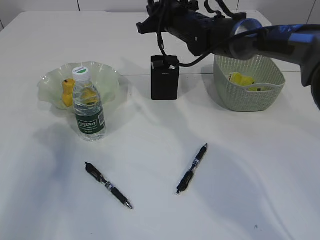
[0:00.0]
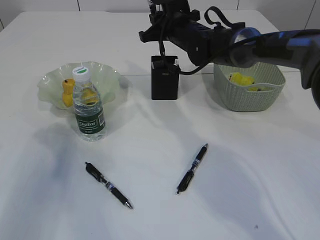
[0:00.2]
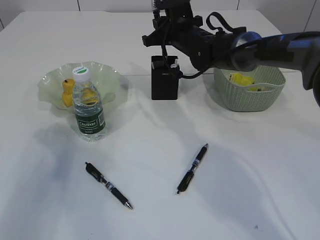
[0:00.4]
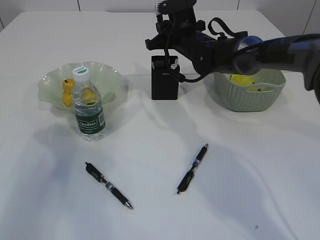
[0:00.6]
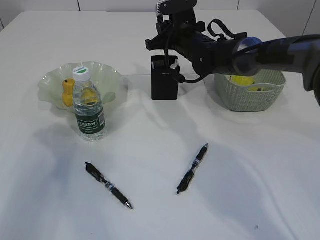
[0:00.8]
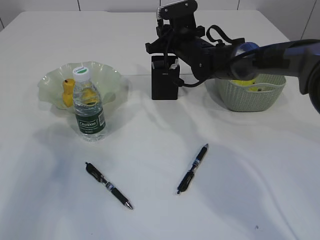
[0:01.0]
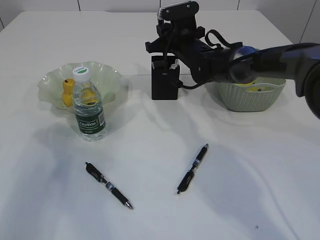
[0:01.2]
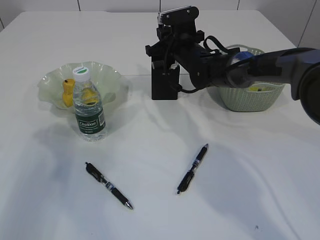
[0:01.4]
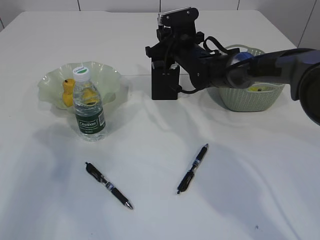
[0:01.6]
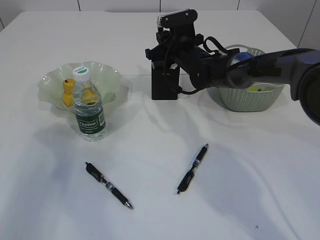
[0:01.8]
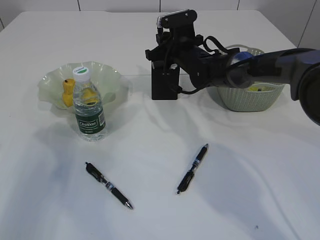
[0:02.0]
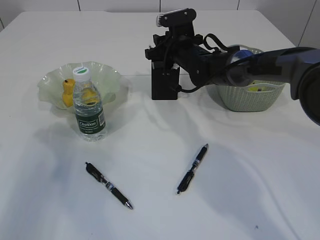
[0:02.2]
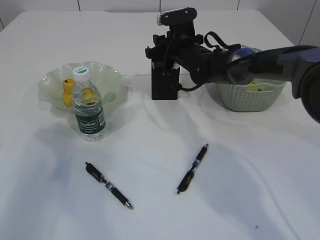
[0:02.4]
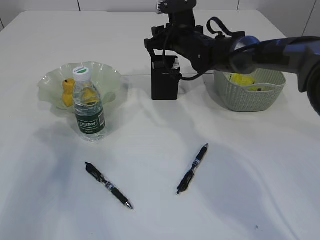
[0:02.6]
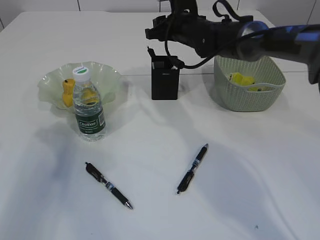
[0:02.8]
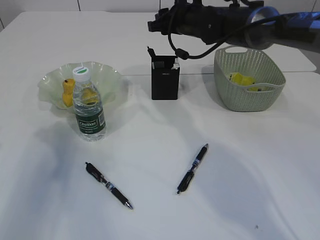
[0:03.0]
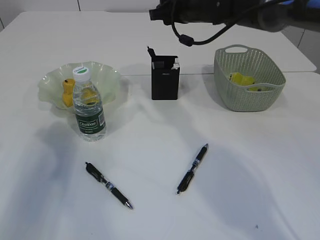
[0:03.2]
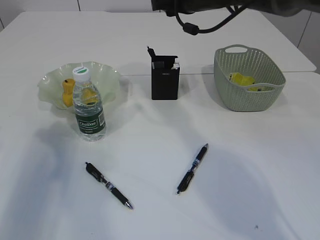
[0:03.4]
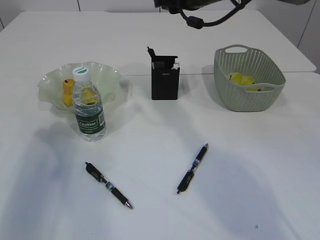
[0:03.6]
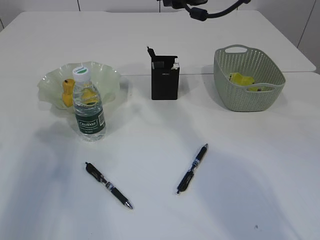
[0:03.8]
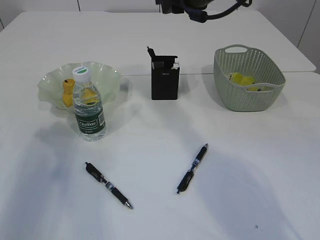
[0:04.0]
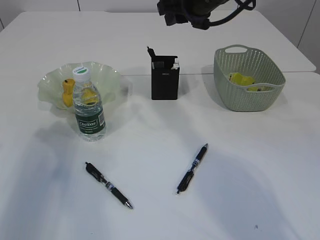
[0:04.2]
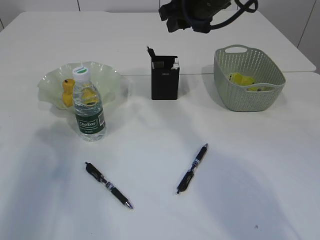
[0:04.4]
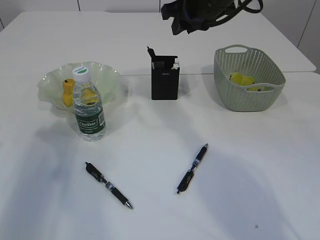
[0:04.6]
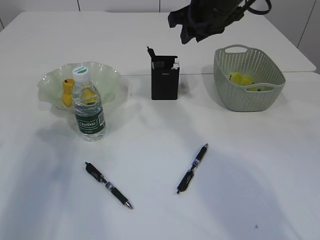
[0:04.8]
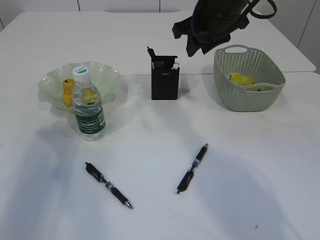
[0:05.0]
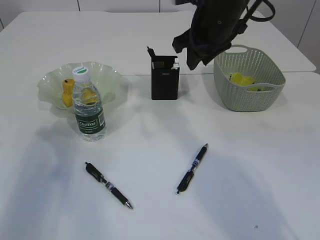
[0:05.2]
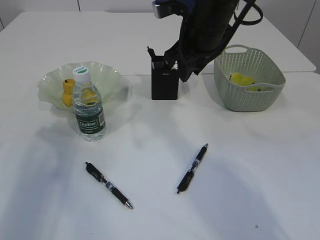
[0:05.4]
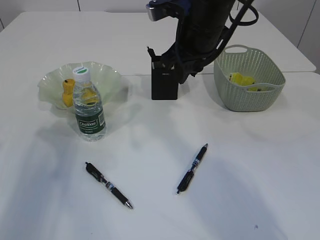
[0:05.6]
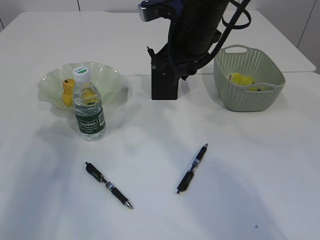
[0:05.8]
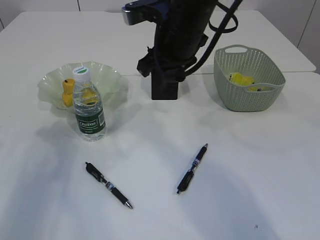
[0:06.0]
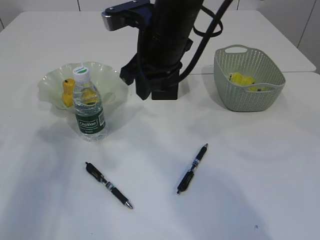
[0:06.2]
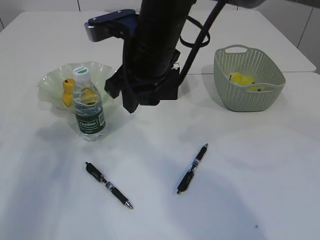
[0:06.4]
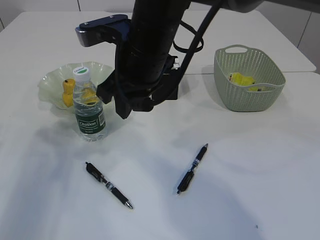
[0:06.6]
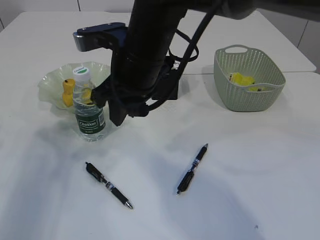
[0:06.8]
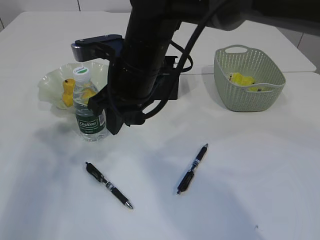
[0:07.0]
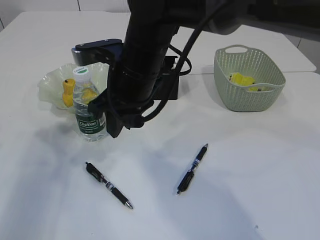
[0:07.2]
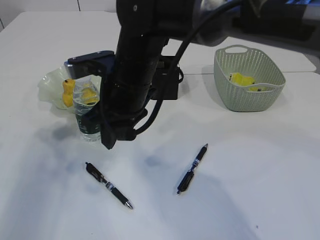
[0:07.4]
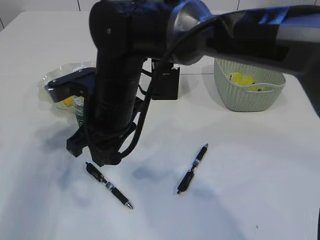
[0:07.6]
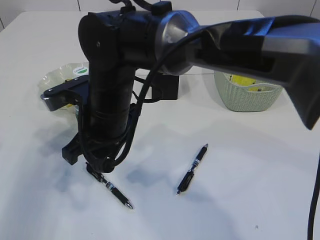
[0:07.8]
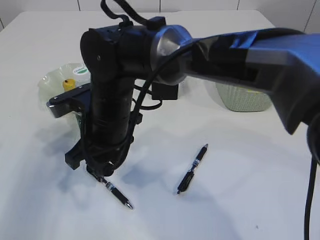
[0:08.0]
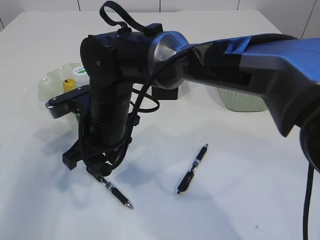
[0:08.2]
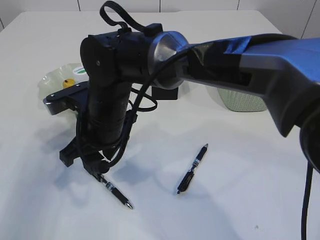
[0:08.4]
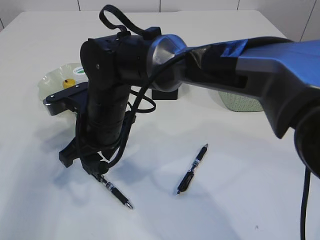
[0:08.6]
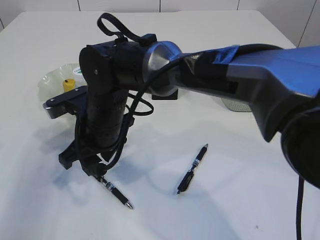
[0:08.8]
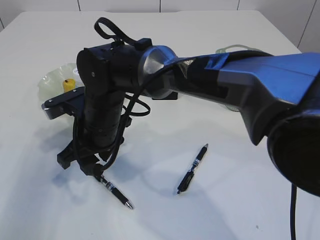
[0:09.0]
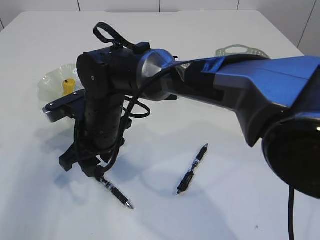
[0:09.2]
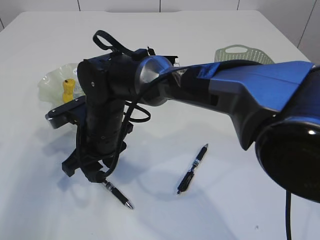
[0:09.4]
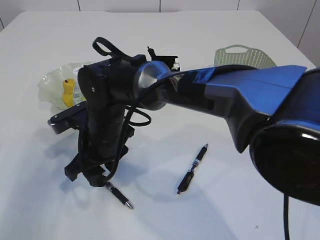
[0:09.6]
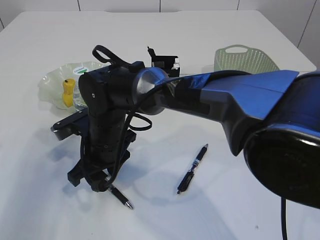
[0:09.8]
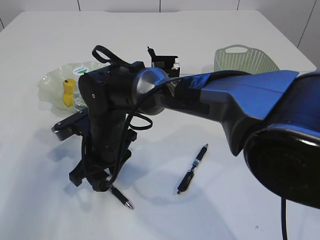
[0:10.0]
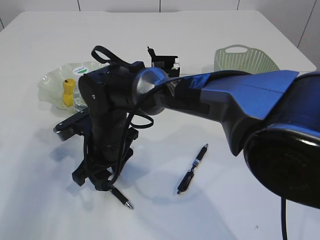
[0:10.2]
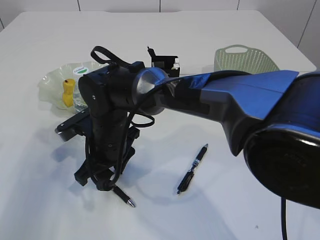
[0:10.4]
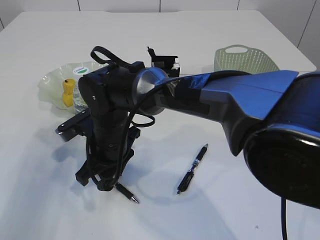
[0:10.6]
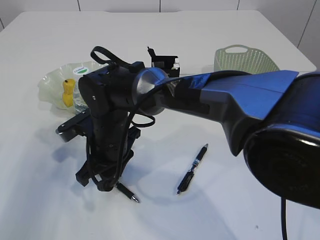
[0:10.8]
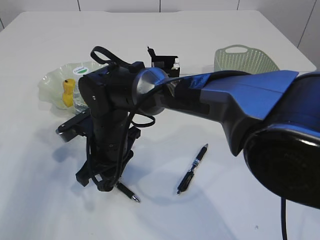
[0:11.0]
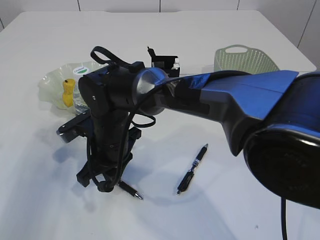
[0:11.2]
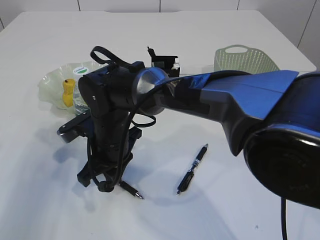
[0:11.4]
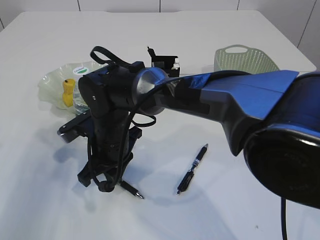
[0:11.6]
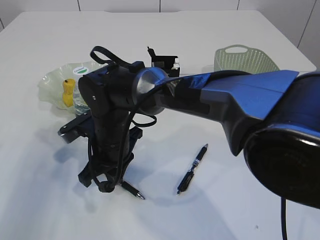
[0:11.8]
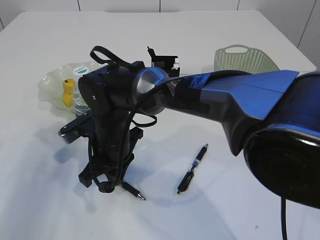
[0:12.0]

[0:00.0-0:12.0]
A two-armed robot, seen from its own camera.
Step, 0:00.0 to 0:02.6: Place the pen into the pen holder.
0:00.0 to 0:01.6: The right gripper goes roughly 5 cm downward.
0:01.6 to 0:03.0: The right gripper goes approximately 5 cm upward, and opens up.
0:03.0 to 0:04.4: The right gripper is displaced upward and backward by about 10 cm.
0:04.4 to 0:06.0: The right gripper shifts about 10 cm backward and to the left.
0:06.0 to 0:07.6: The right gripper is displaced to the left, downward and backward by some 15 cm.
0:07.6 to 0:09.0: The right gripper is displaced downward by some 5 cm.
0:10.4 to 0:12.0: The right gripper closes up.

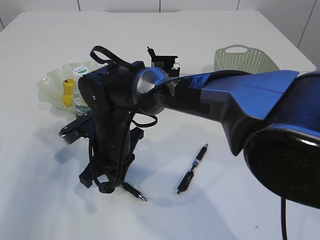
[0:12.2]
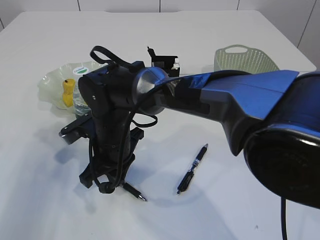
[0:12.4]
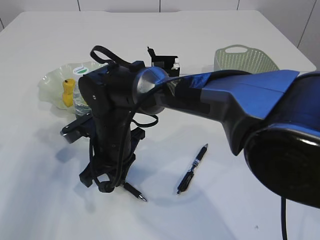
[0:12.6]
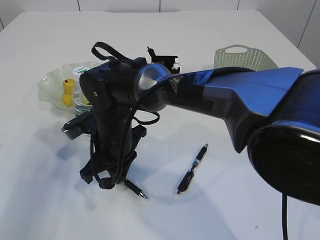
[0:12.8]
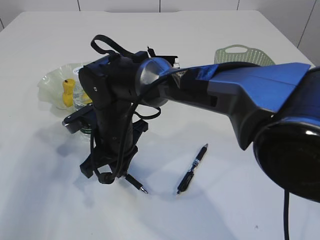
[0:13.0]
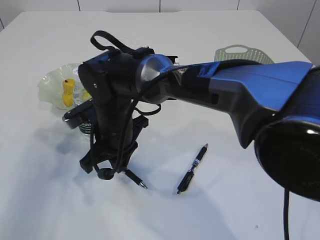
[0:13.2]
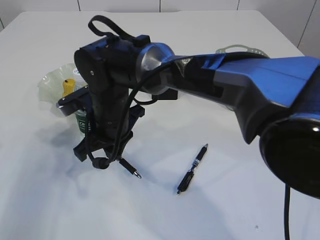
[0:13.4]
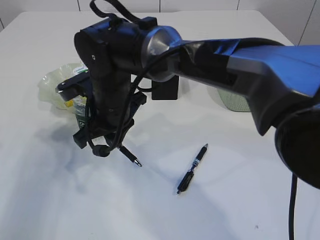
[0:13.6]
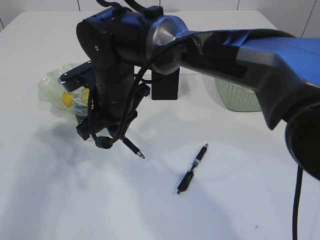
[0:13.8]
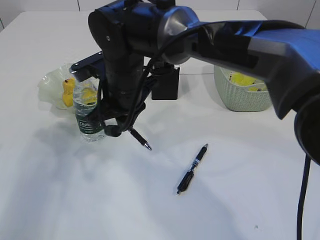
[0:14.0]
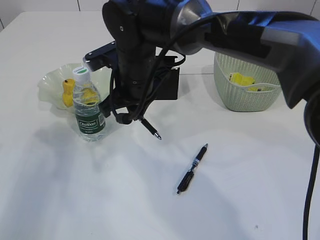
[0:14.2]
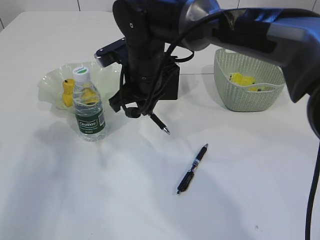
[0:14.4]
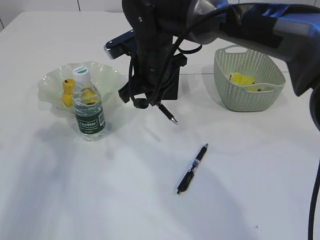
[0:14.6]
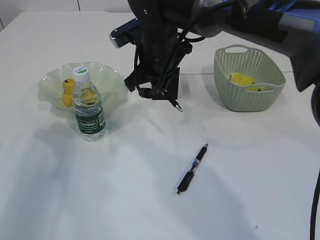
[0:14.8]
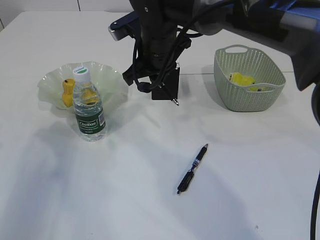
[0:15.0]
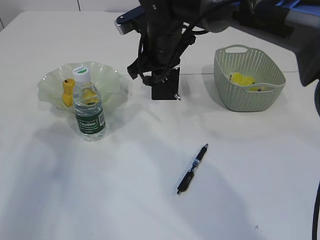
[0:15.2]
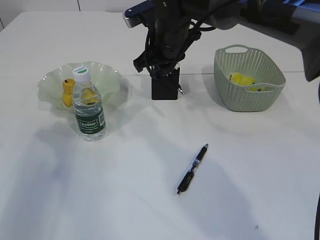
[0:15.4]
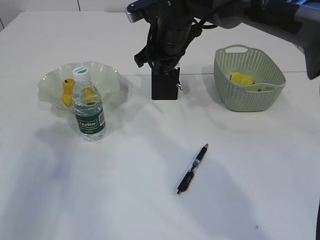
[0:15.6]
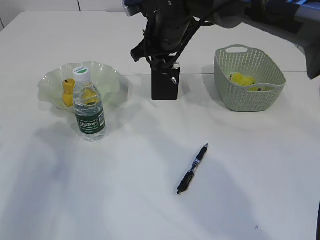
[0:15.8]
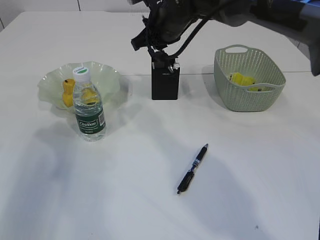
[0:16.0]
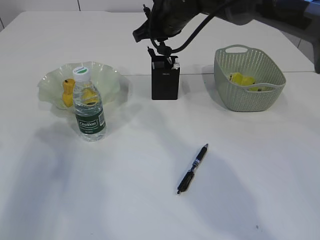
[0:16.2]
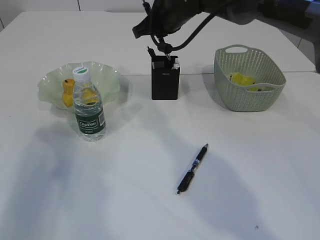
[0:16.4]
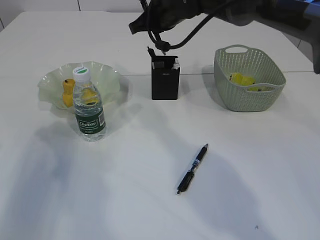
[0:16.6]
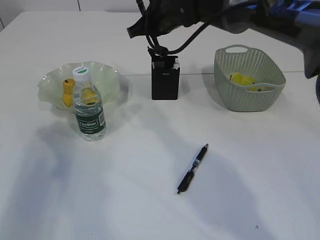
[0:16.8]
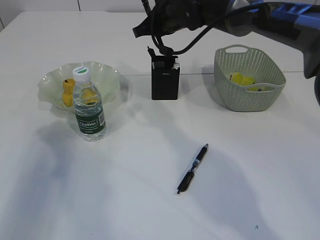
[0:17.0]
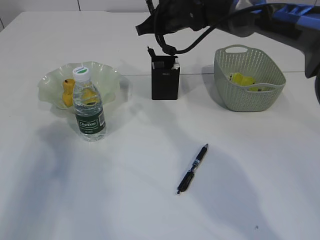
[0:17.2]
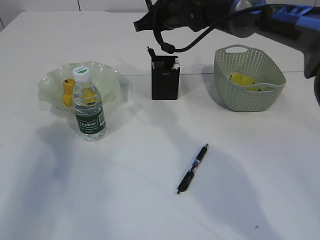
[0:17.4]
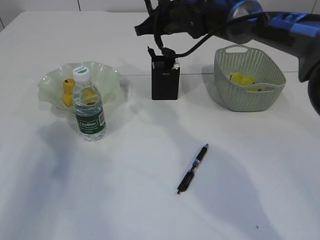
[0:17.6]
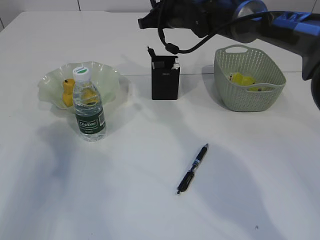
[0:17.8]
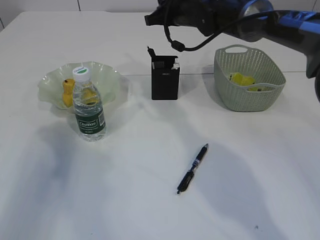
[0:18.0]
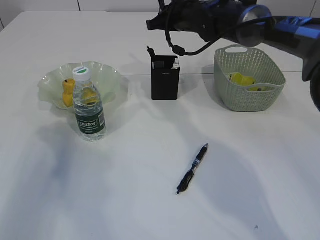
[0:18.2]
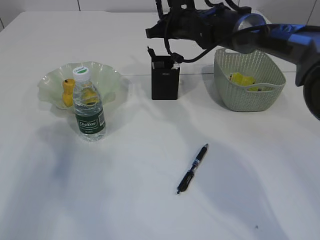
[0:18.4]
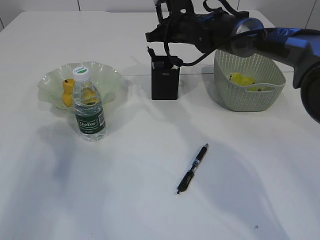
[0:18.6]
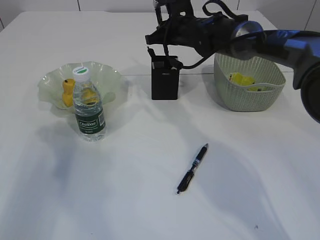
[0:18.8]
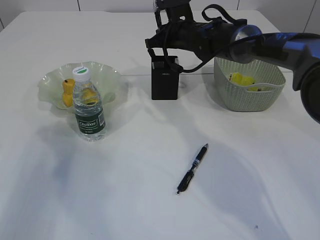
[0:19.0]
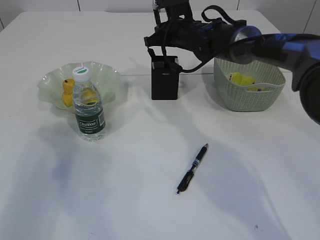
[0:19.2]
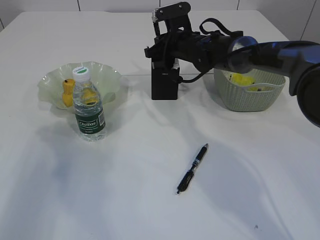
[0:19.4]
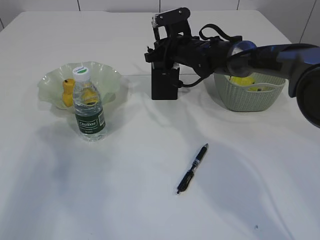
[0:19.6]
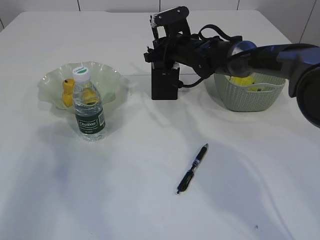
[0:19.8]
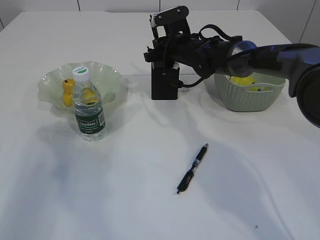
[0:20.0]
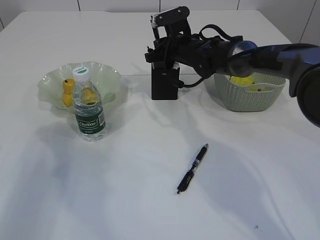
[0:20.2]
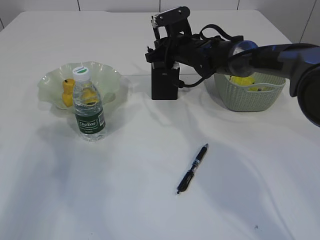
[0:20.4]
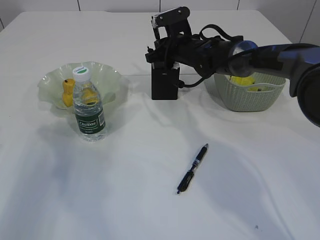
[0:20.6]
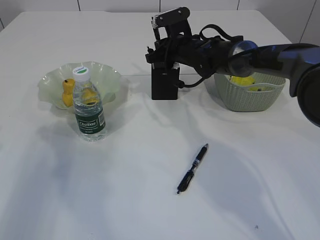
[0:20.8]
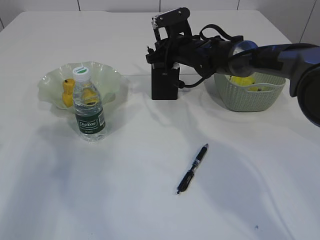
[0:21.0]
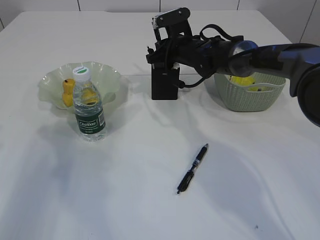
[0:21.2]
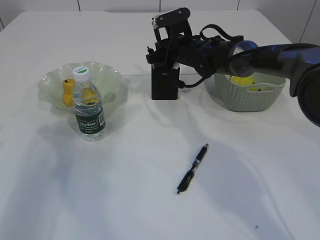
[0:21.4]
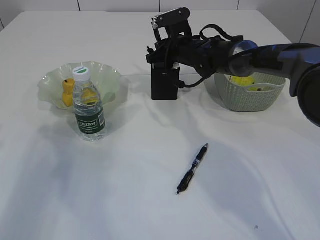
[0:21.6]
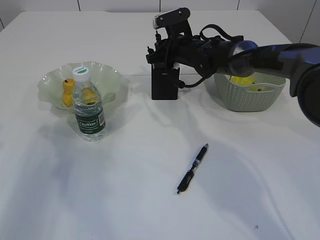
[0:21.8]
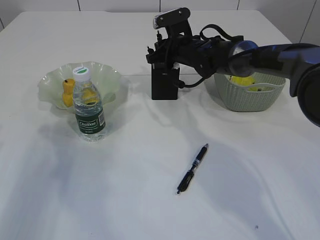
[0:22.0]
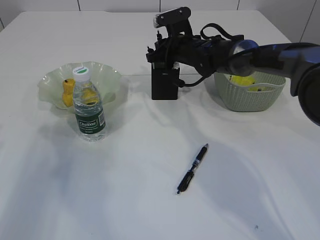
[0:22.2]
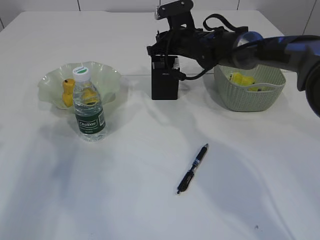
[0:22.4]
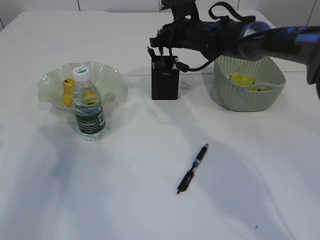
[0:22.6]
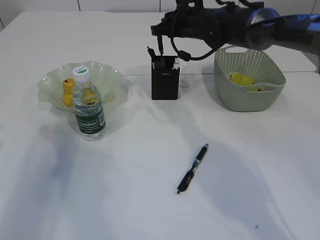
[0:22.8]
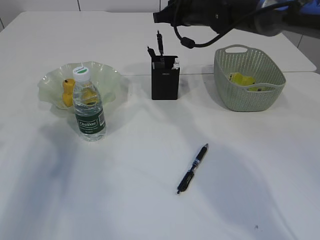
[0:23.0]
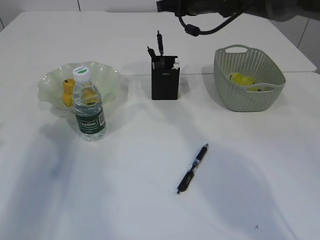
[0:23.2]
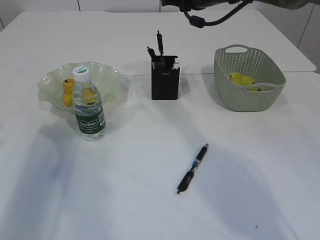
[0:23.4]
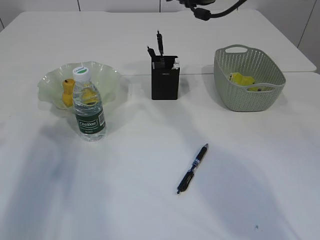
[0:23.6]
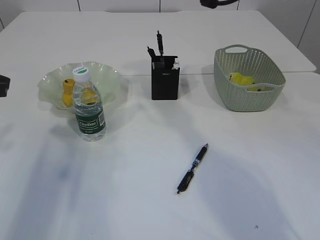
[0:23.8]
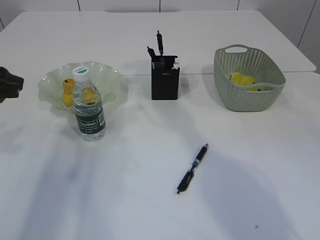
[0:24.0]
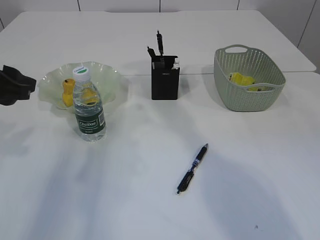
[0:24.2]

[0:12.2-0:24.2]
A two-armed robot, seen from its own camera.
Step, 0:13.4 to 0:22.6: Place the pen into the pen holder.
0:12.2 to 0:13.8: The right gripper heads upward, covering about 10 cm.
0:13.8 to 0:15.2: The right gripper moves to the right and forward, approximately 10 cm.
0:15.2 to 0:16.6: The right gripper shifts some 5 cm forward.
0:16.6 to 0:18.2: The right gripper ends up about 5 cm from where it was.
0:18.2 to 0:19.8: The right gripper moves downward, some 5 cm.
0:19.8 to 0:21.2: Both grippers stay about where they are.
0:21.2 to 0:22.6: The grippers make only small movements.
0:22.6 to 0:24.2: The left gripper goes some 5 cm to the right. The right gripper travels upward and backward by roughly 20 cm.
